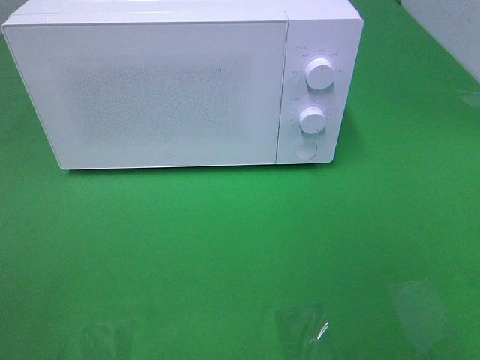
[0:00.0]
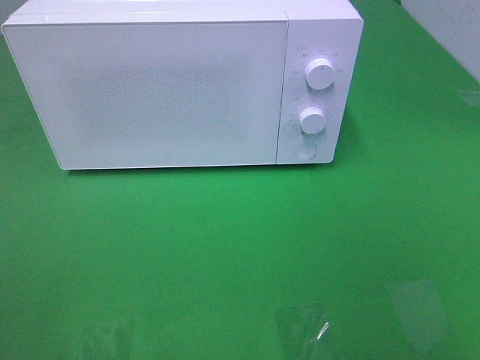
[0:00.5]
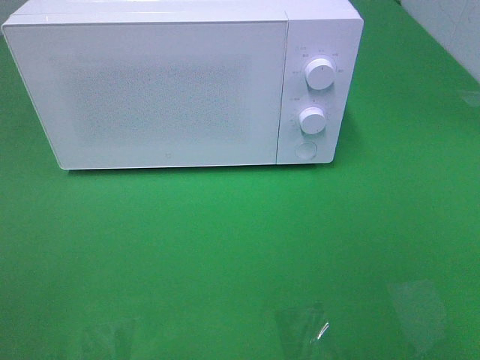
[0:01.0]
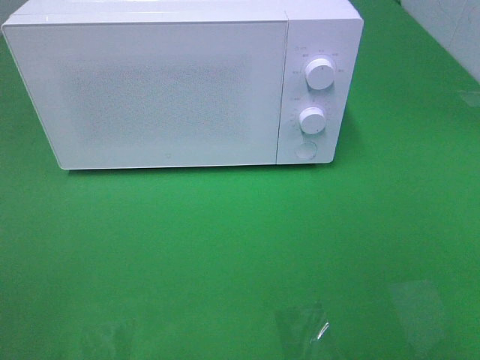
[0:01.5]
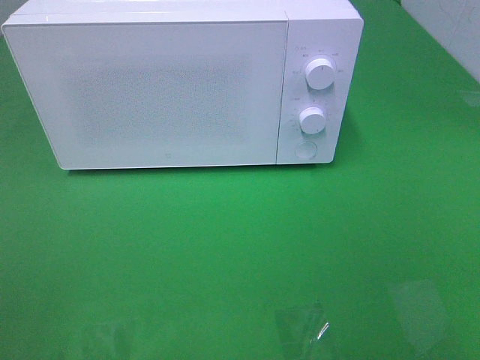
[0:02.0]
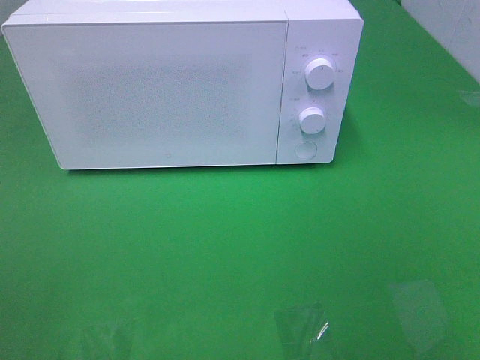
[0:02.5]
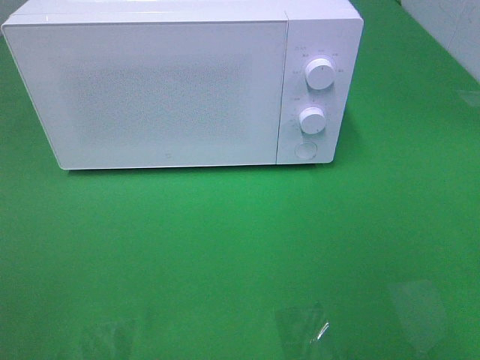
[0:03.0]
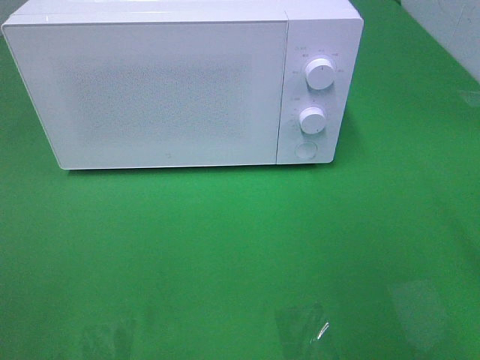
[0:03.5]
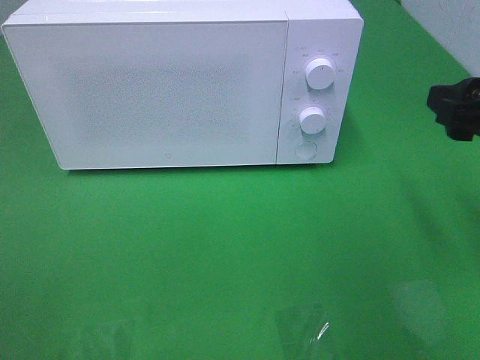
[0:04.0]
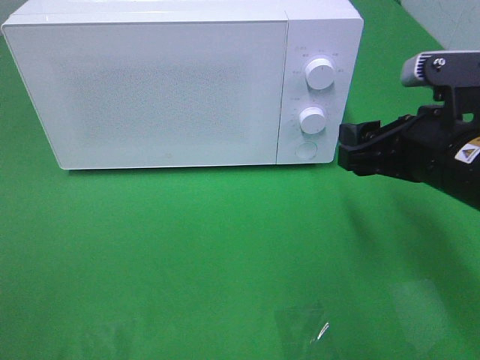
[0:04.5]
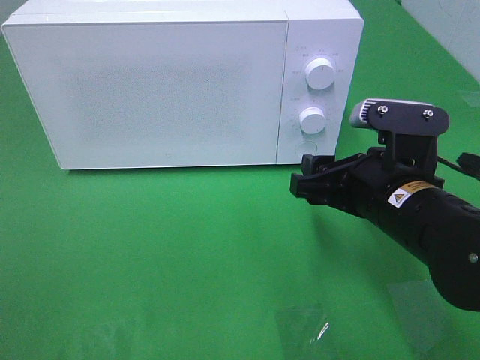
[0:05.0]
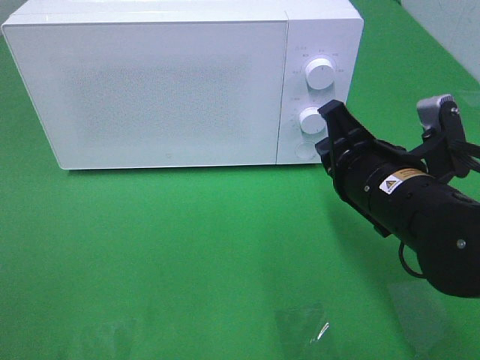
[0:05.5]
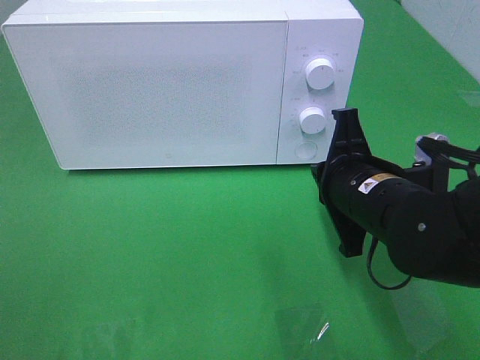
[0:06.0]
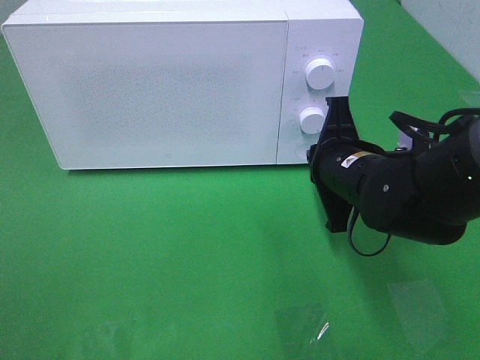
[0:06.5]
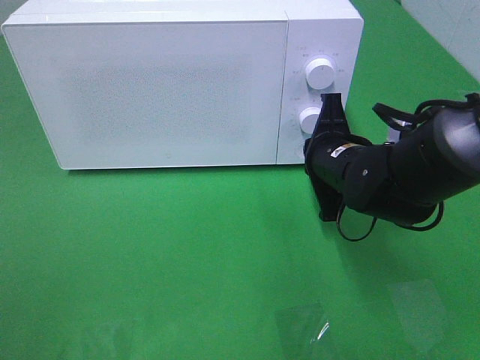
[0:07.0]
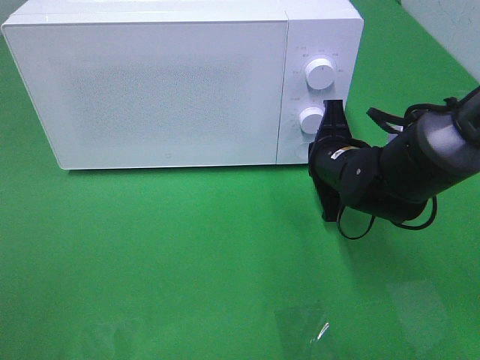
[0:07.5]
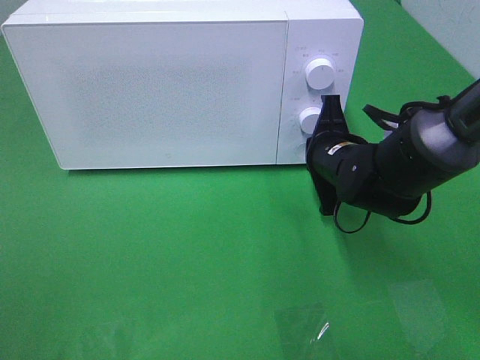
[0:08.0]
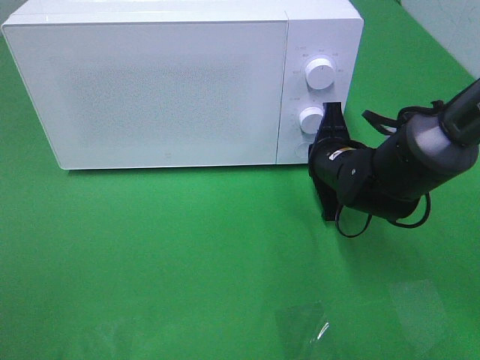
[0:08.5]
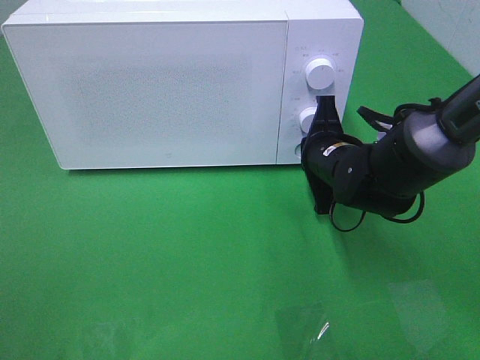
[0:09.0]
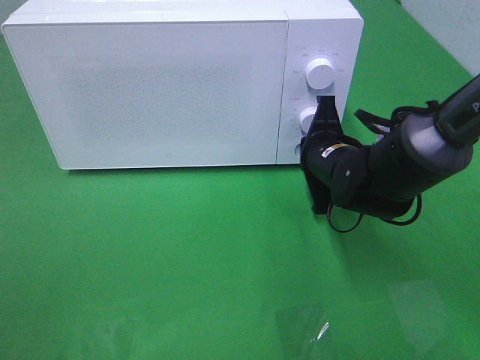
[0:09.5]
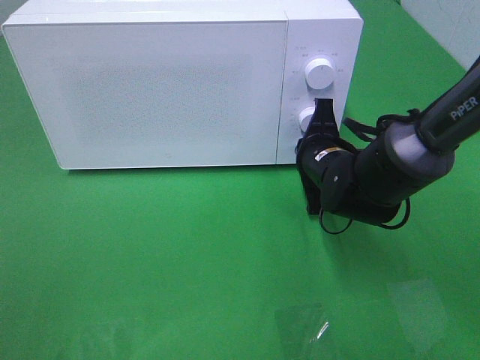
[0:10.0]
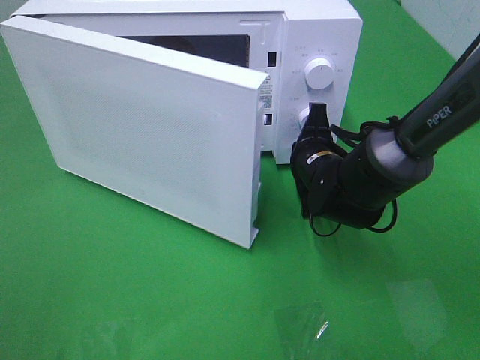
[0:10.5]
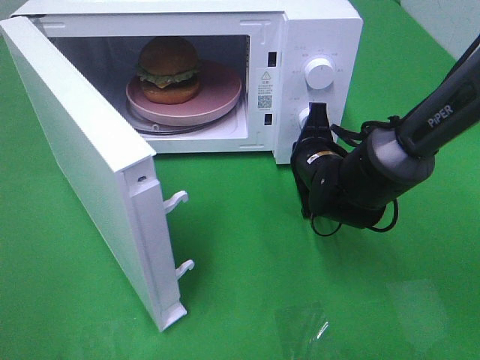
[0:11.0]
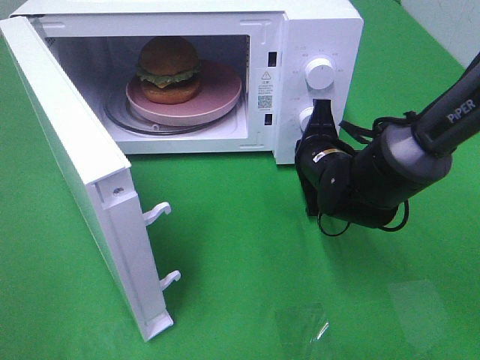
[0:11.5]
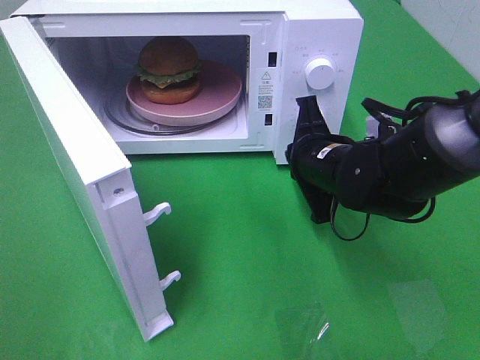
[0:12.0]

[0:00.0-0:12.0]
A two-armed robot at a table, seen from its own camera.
Task of the whole recording: Heat the burger.
Step, 0:00.0 to 0:11.5: Right hand: press the switch.
0:02.0 to 0:04.0: The right gripper goes roughly 20 cm forward.
0:04.0 to 0:06.0: The right gripper heads to the left and downward, covering about 15 cm, and closes its fingers.
0:06.0 to 0:08.0: The right gripper heads forward, covering roughly 10 cm.
0:08.0 to 0:10.0: The grippers move only a little.

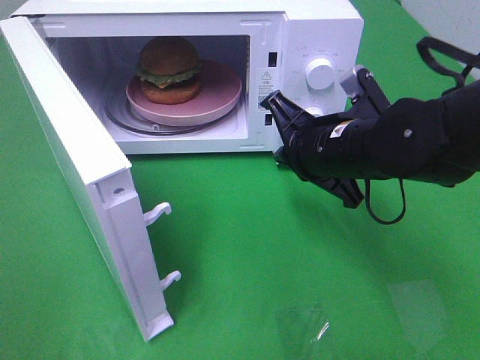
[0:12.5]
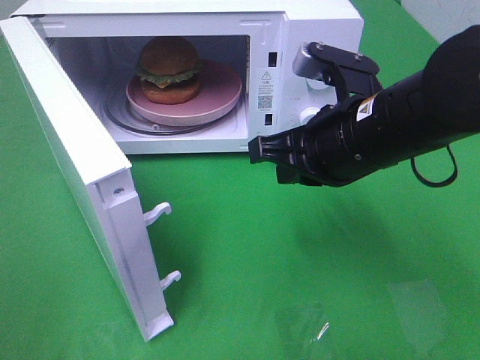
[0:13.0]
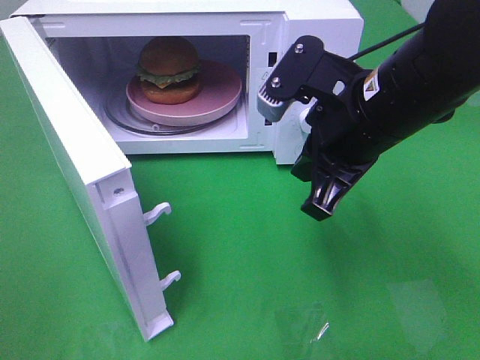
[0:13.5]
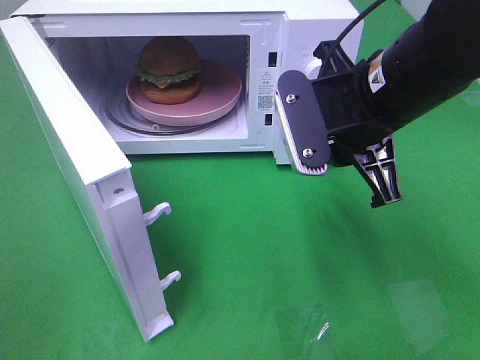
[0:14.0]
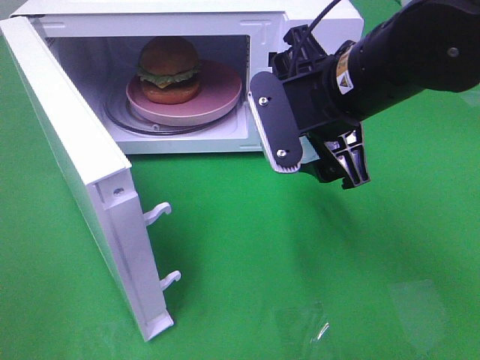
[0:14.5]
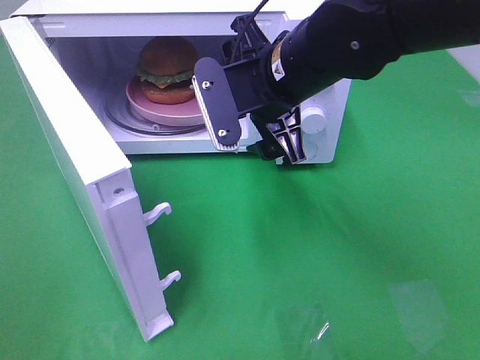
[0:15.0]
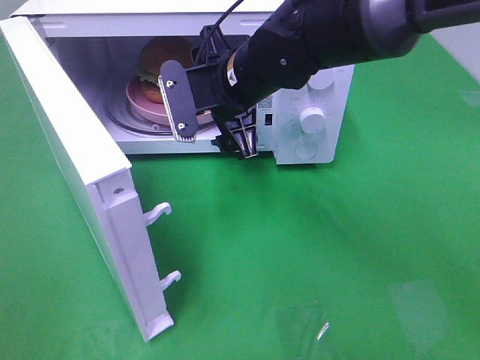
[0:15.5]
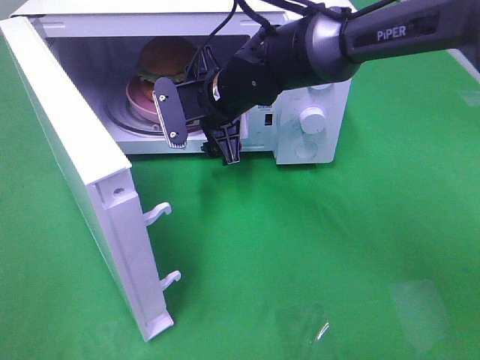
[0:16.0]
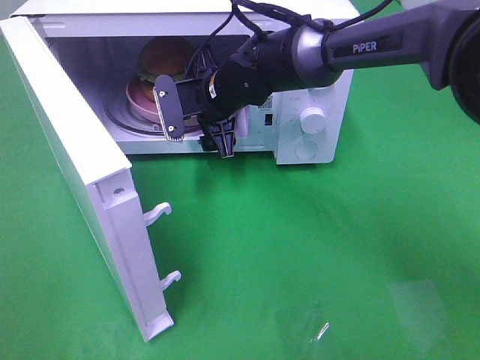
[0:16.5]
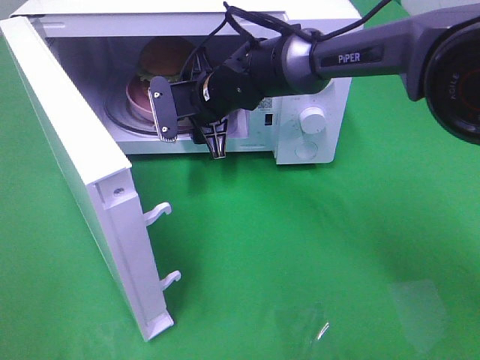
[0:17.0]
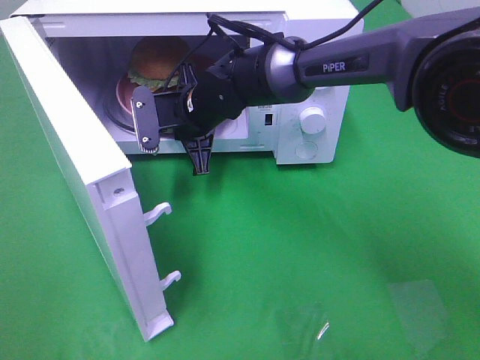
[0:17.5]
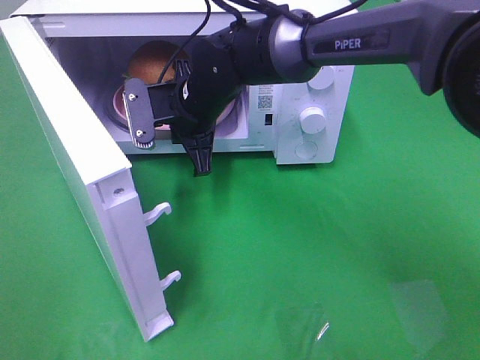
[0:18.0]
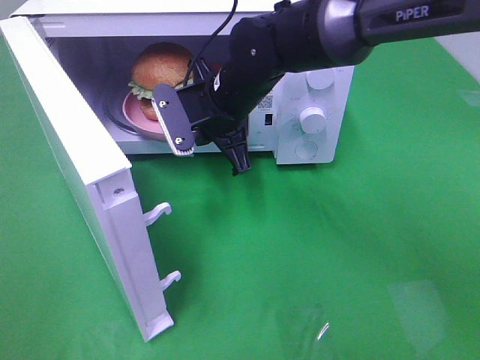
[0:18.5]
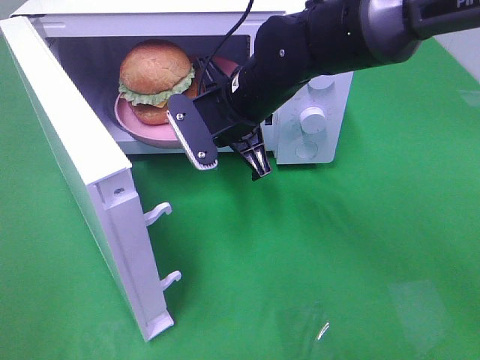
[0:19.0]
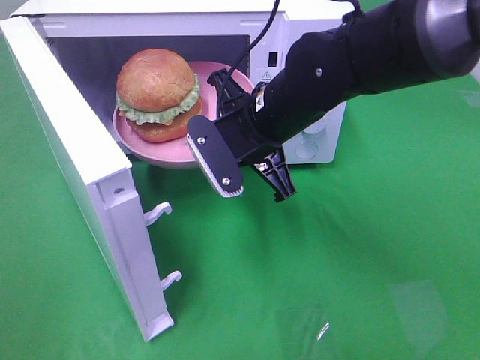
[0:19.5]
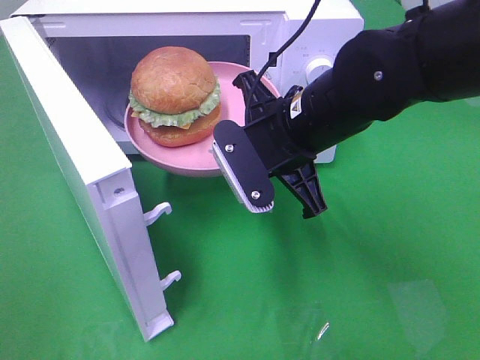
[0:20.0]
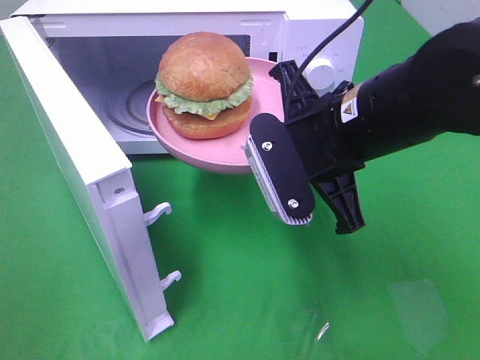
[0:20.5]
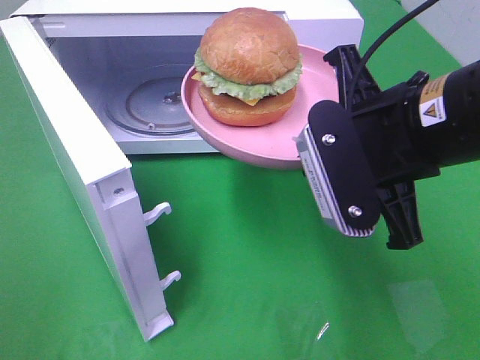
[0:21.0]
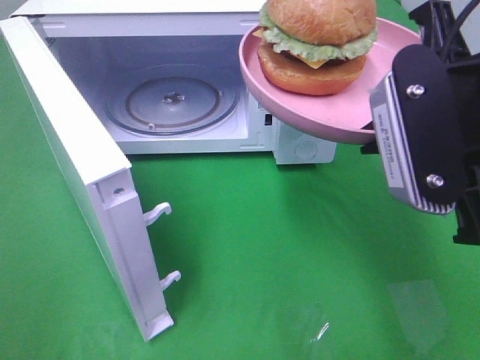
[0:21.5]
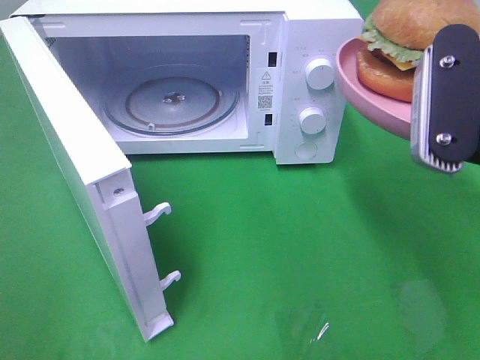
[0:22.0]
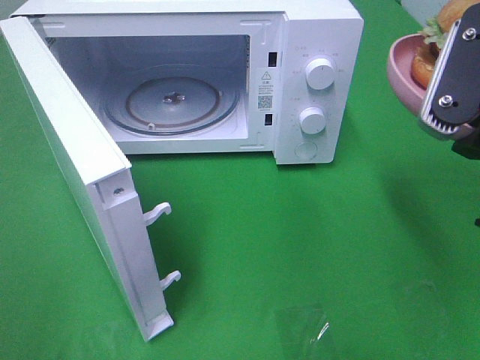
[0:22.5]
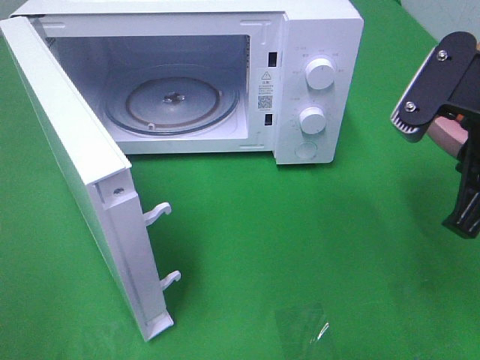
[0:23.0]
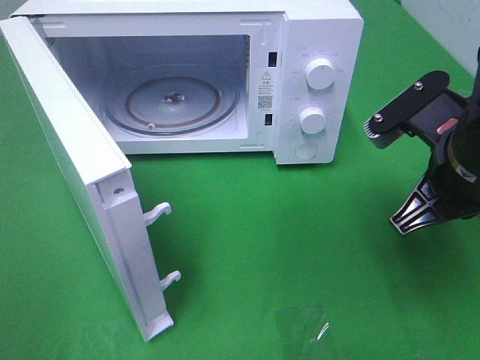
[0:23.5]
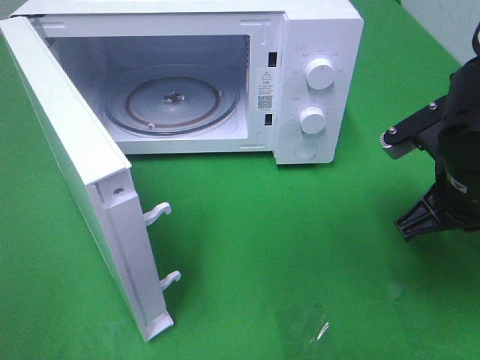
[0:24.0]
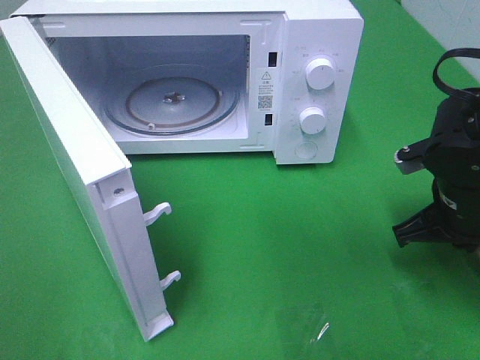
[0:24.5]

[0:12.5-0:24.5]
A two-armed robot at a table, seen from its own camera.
Task of the whole recording: Heat the burger.
Step, 0:12.5 to 0:17.0: Right hand: grab the plate with the hamburger.
0:12.5 to 0:14.5: The right gripper shifts some 5 cm upward, and opens.
0:14.5 to 0:16.5: The right gripper moves forward, to the left and downward, about 20 cm.
0:16.5 to 0:18.5: The right gripper ends up about 5 cm from where it was, and closes up.
0:18.5 to 0:20.5: The right gripper shifts approximately 15 cm backward and to the right.
0:20.5 to 0:22.5: The right gripper is displaced to the right, backward and upward by approximately 15 cm.
0:22.5 to 0:24.5: The right gripper heads downward and forward, covering about 20 cm.

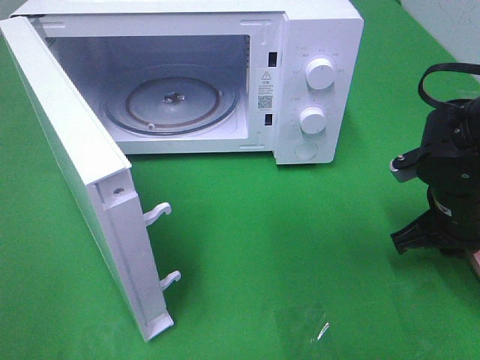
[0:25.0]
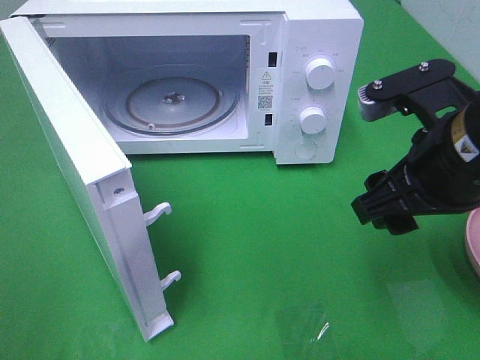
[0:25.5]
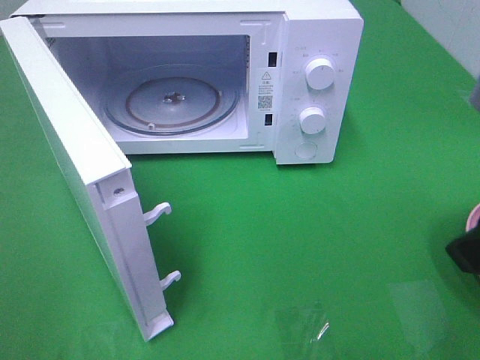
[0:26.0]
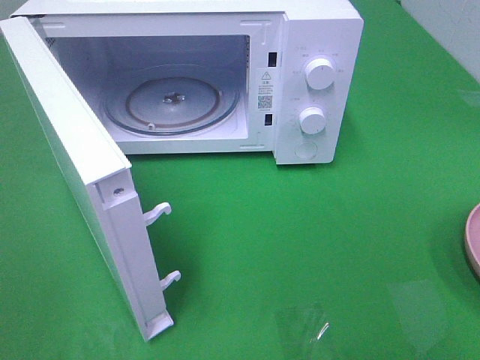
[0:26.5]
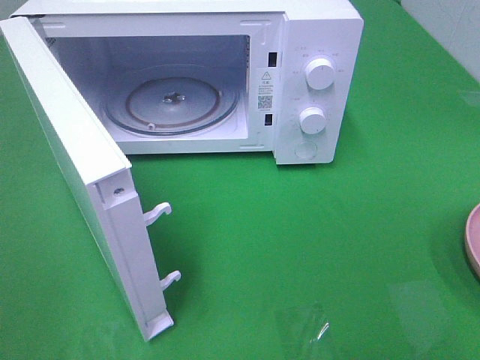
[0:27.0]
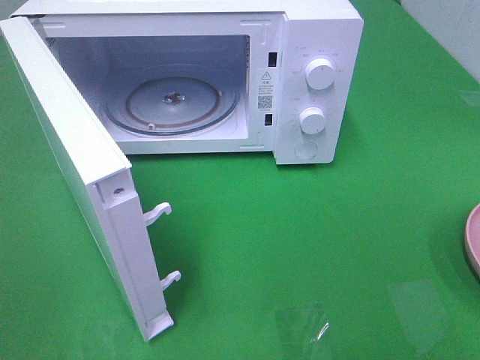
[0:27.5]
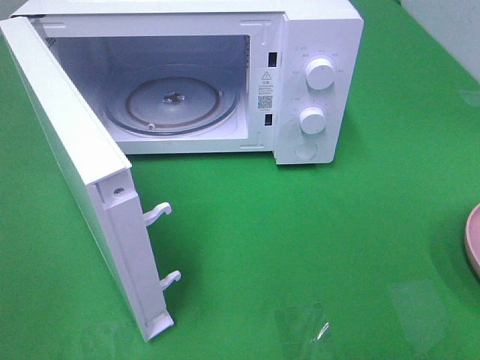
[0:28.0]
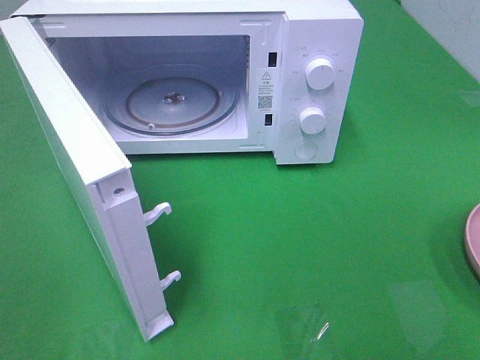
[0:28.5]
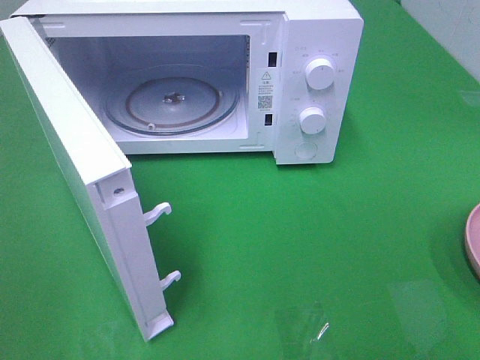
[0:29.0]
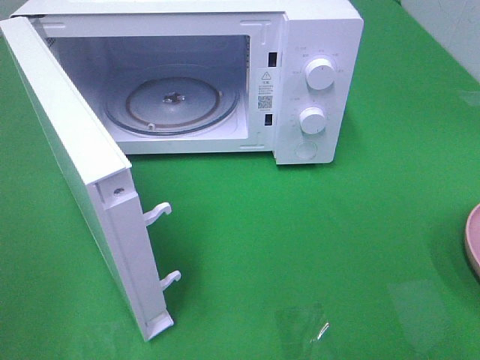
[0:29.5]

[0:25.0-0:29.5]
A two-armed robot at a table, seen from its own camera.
Task of the whole recording: Heat the burger.
0:25.0 to 0:27.0: The right gripper moves backward and upward, roughly 30 cm, and opens.
